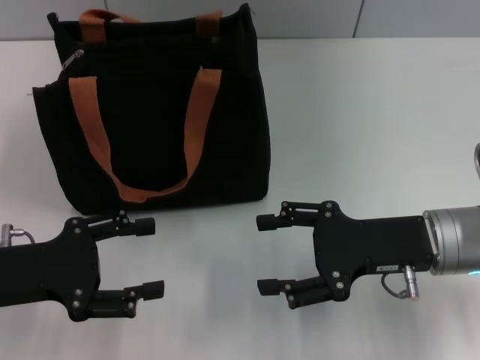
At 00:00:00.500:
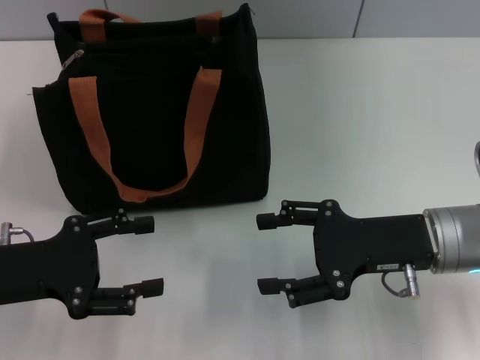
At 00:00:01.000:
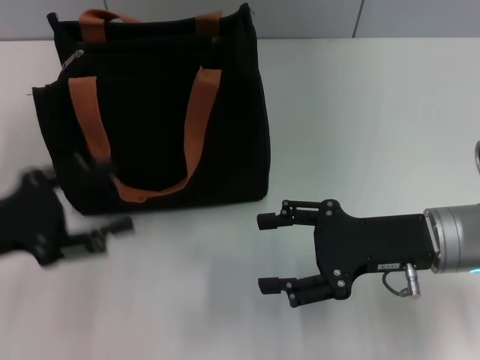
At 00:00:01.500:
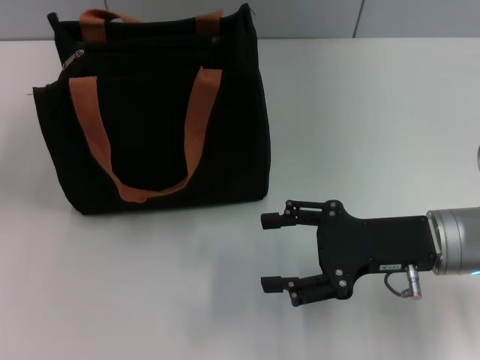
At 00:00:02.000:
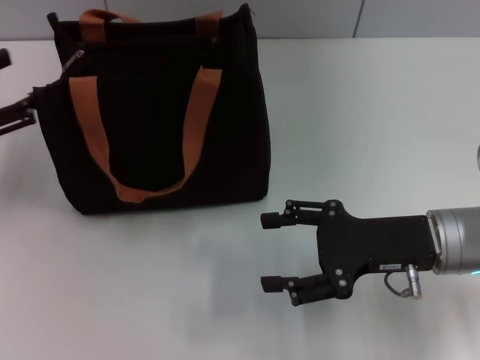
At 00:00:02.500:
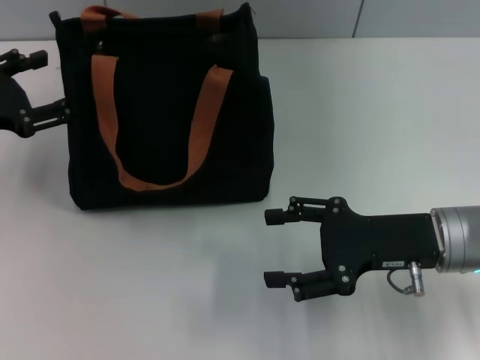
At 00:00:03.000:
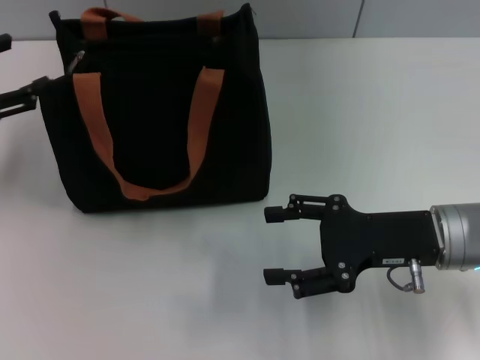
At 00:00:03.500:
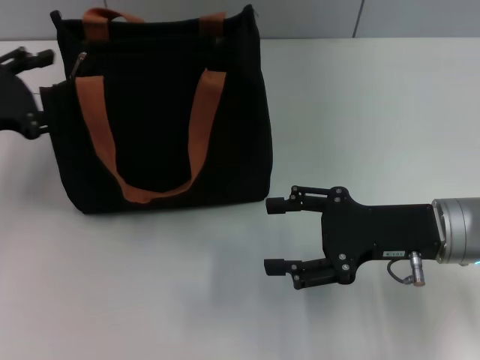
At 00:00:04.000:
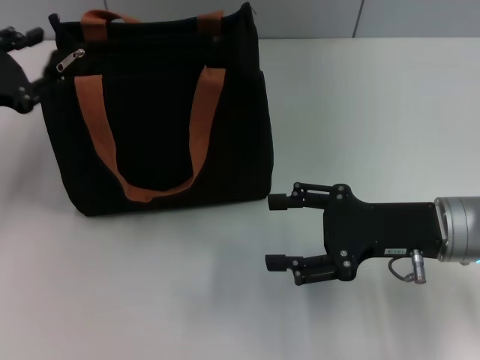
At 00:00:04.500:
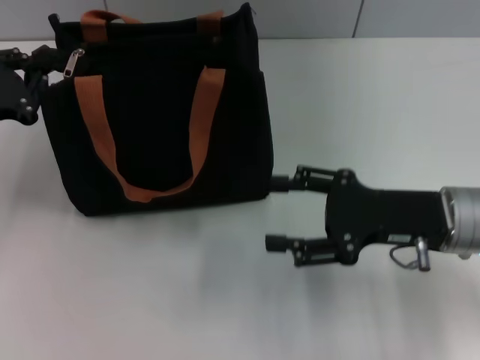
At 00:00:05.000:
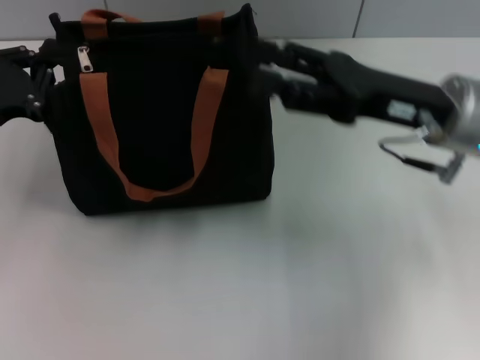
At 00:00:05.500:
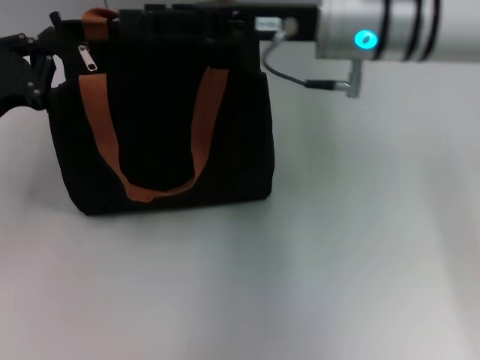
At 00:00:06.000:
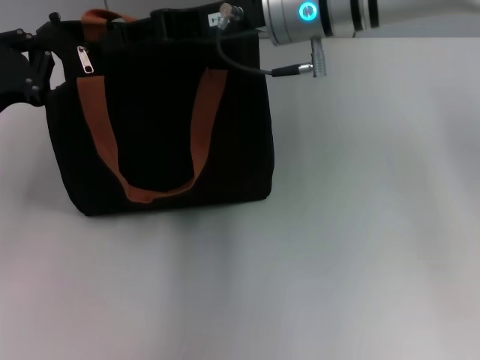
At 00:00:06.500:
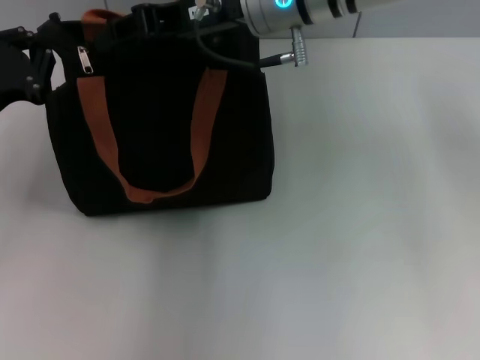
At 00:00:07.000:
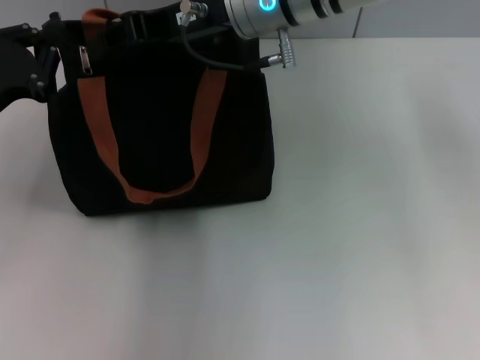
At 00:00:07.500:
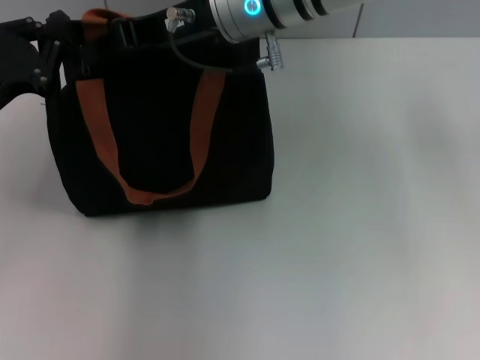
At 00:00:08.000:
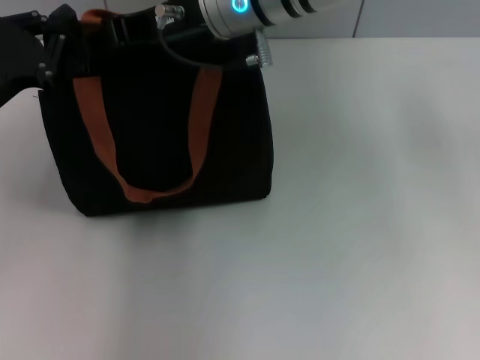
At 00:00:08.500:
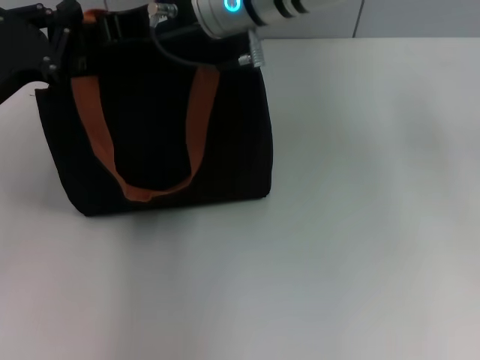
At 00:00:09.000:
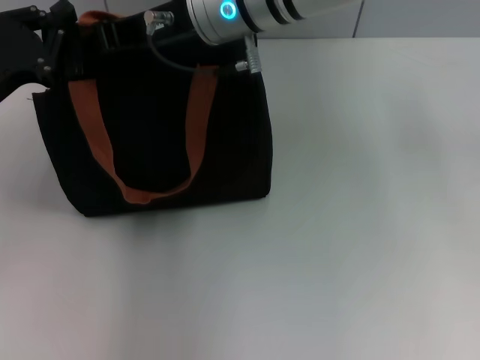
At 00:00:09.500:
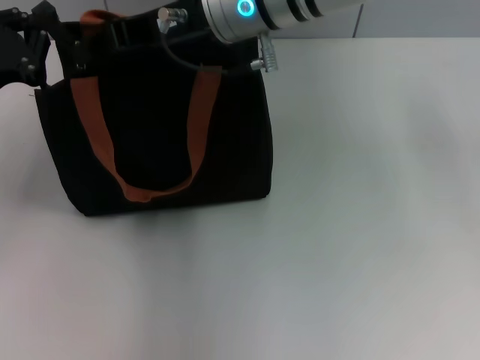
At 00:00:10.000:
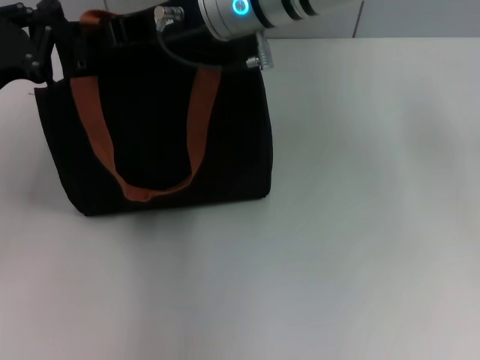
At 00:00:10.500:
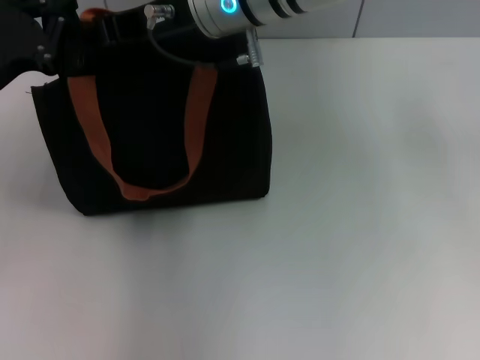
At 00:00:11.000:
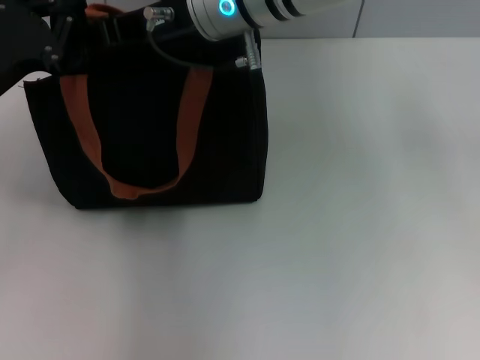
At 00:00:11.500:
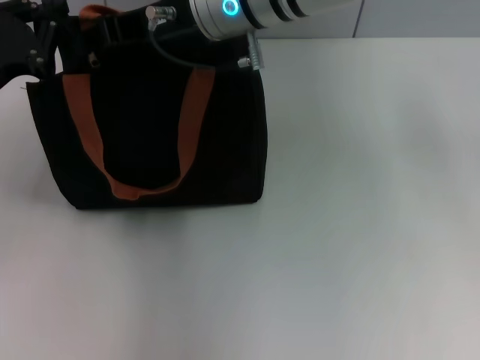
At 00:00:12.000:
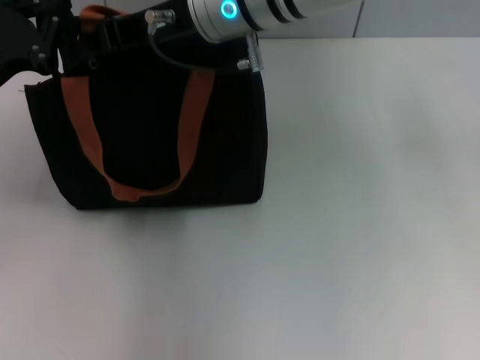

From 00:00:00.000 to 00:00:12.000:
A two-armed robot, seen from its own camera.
From 00:00:00.000 to 00:00:02.000: The left gripper shifts about 10 cm to the left and forward.
From 00:00:02.000 to 00:00:04.000: The grippers move only a little.
From 00:00:04.000 to 00:00:06.000: The left gripper closes up; the right gripper shifts approximately 25 cm to the left, forward and upward.
From 00:00:06.000 to 00:00:08.000: The right gripper moves approximately 5 cm, and closes.
From 00:00:08.000 to 00:00:12.000: The grippers make only small movements.

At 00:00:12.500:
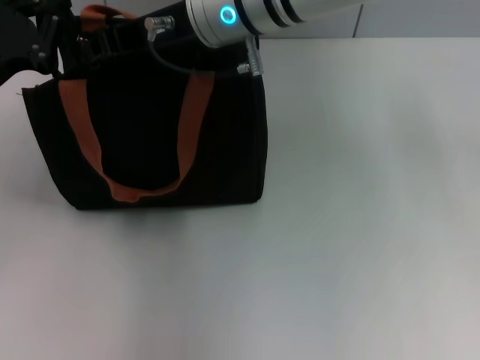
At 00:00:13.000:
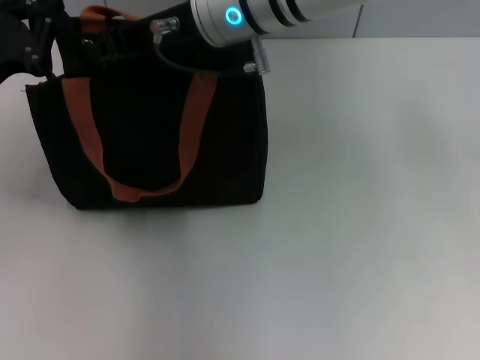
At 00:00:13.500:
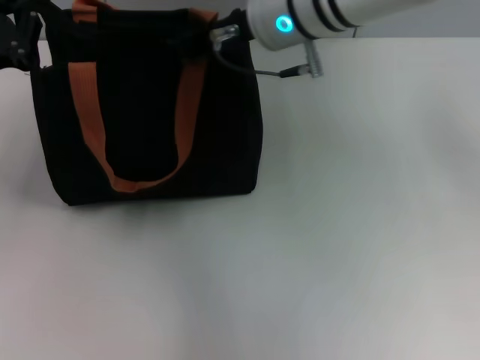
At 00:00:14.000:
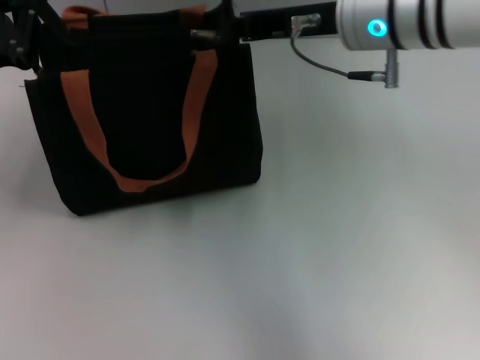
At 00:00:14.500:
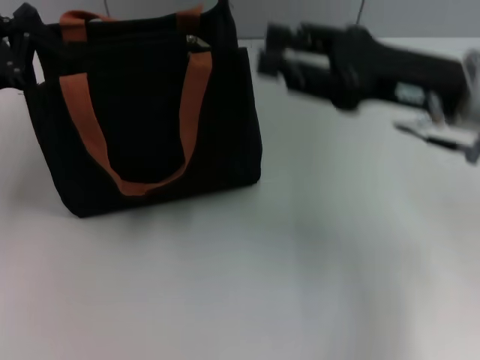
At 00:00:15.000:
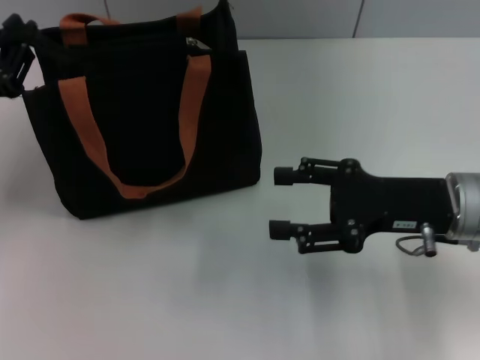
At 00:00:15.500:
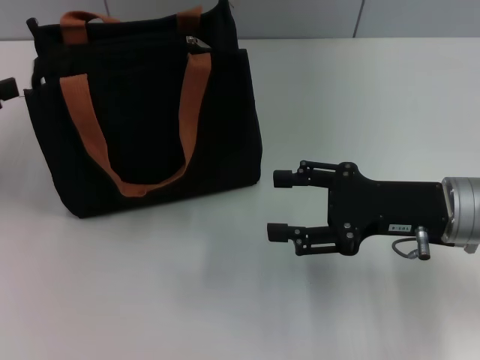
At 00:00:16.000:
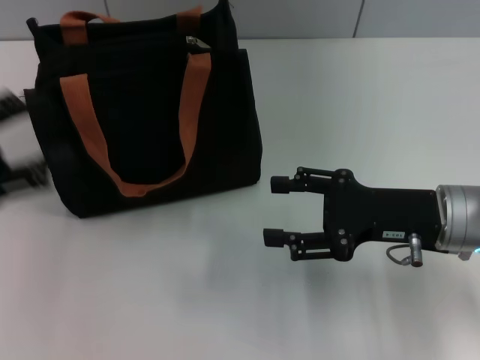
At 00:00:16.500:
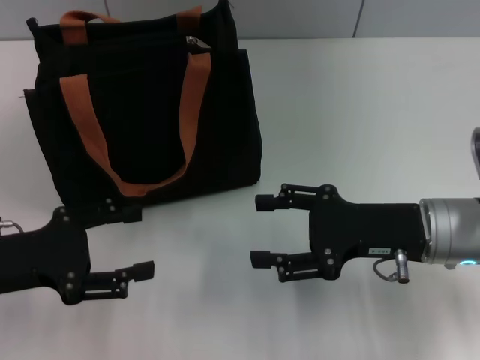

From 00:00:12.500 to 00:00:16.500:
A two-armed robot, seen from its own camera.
Step, from 00:00:14.500 to 00:00:15.500: Grab the zipper with your left hand.
From 00:00:12.500 to 00:00:14.500: The right gripper is displaced to the right and backward by roughly 20 cm.
From 00:00:14.500 to 00:00:16.500: The left gripper moves backward, some 10 cm, travels to the left and back again, approximately 5 cm each way, and opens up. Meanwhile the right gripper goes some 10 cm downward, and opens up.

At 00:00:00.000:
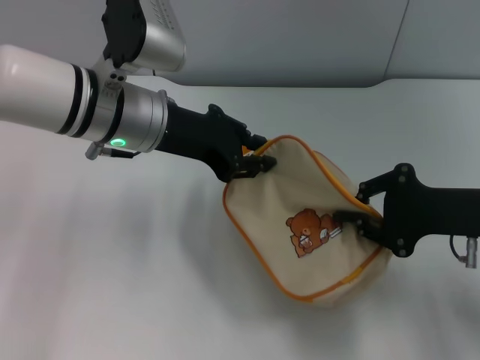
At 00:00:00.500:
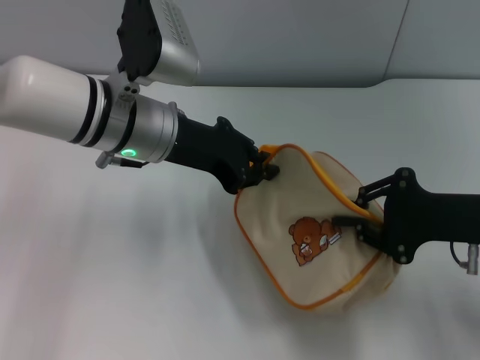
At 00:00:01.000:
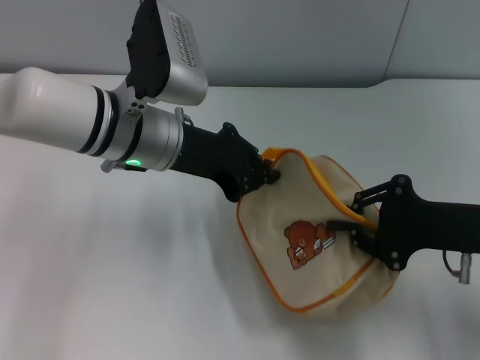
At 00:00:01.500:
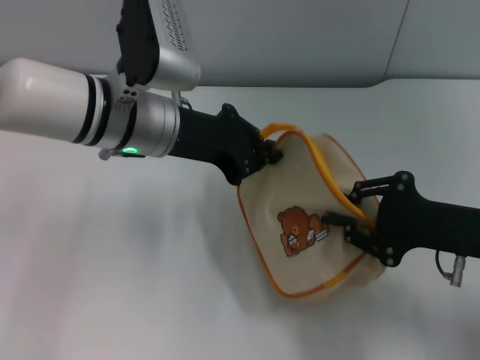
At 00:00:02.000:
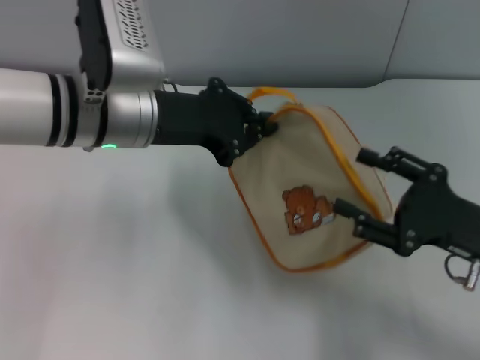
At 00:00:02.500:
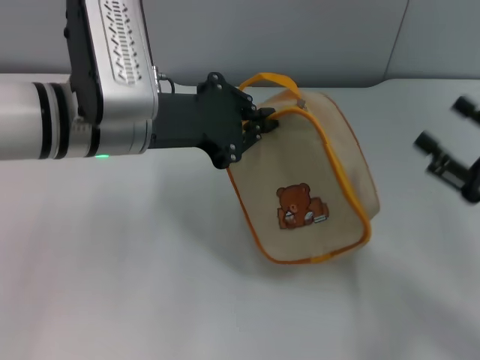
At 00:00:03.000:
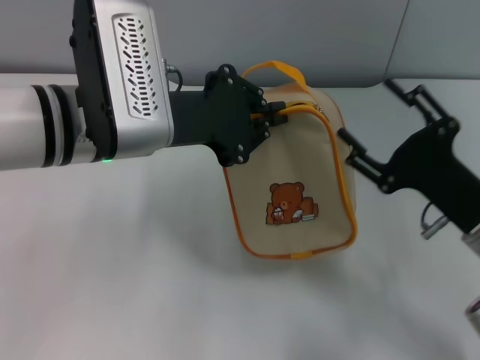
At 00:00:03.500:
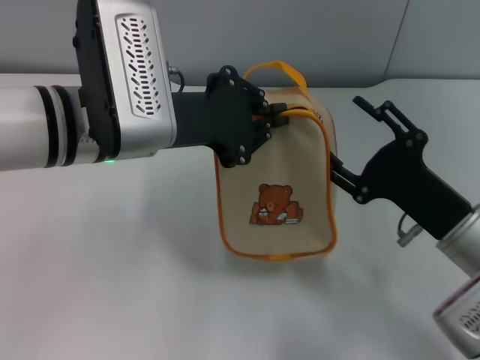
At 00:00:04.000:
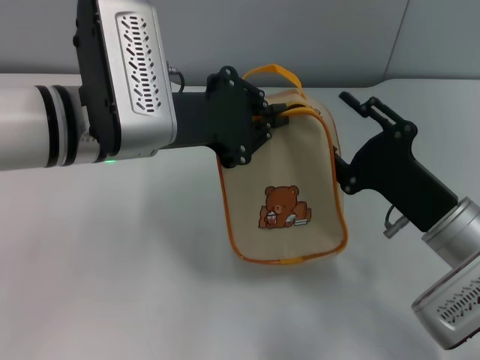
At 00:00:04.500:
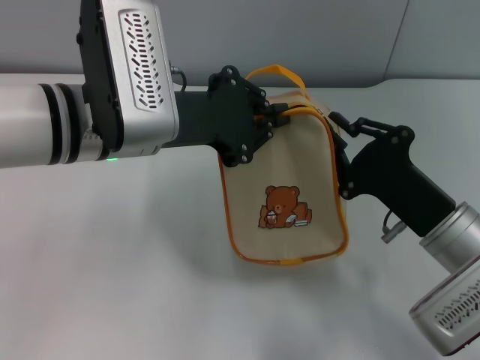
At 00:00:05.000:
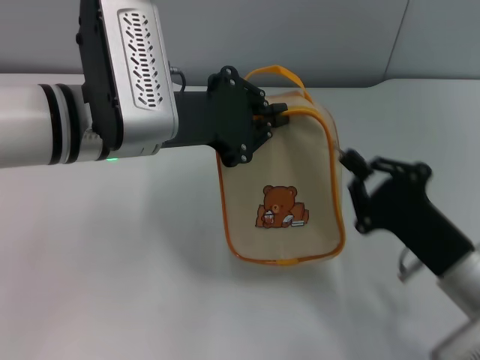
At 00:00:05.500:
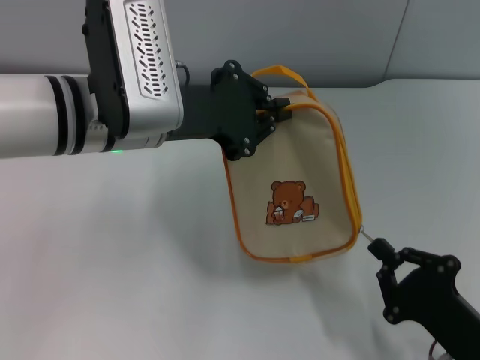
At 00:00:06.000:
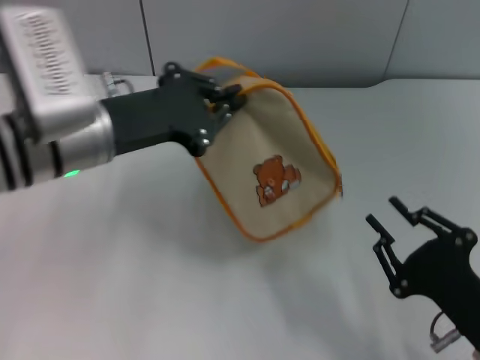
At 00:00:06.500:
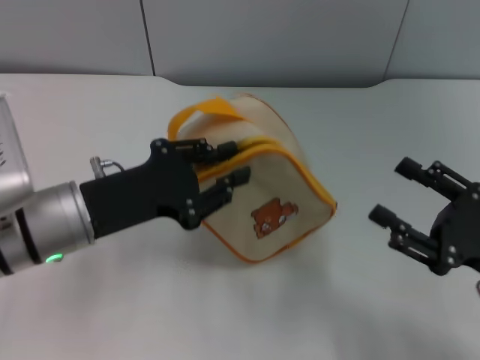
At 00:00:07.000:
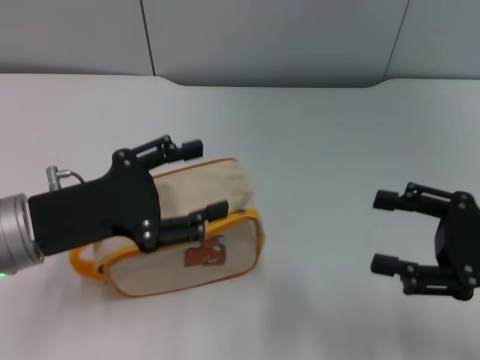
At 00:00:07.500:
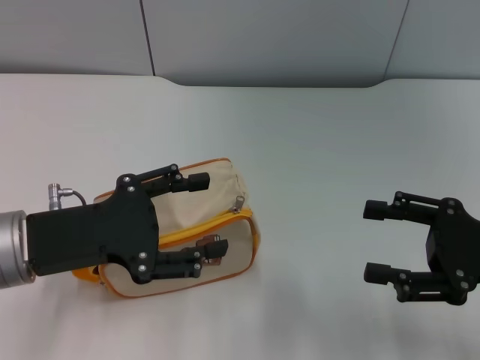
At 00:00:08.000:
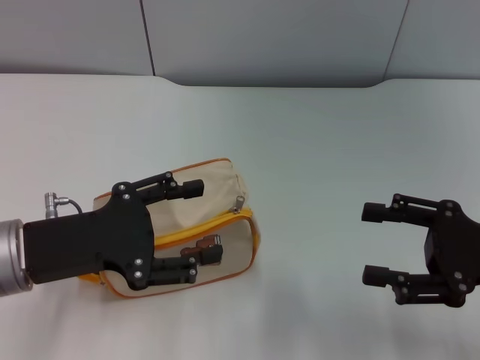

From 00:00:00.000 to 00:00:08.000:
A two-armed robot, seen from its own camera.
Step, from 00:00:00.000 to 00:00:02.000: Deliver the bag from right gripper to left gripper.
Step, from 00:00:02.500 to 00:00:05.500: Unzip the zipper of bag with right gripper.
Step, from 00:00:06.000 to 00:00:07.000: Place the bag on the table with left gripper.
From 00:00:00.000 to 00:00:02.000: The left gripper closes up. The right gripper moves roughly 5 cm, and opens its fingers.
From 00:00:02.000 to 00:00:04.000: The right gripper is displaced to the left by approximately 5 cm.
From 00:00:04.000 to 00:00:06.000: The right gripper goes about 10 cm backward, and closes. Meanwhile the left gripper ends up about 5 cm from where it was.
From 00:00:06.000 to 00:00:08.000: The right gripper is displaced upward, forward and to the right by roughly 15 cm, and opens. The left gripper is displaced backward and to the left by roughly 10 cm, and opens.
